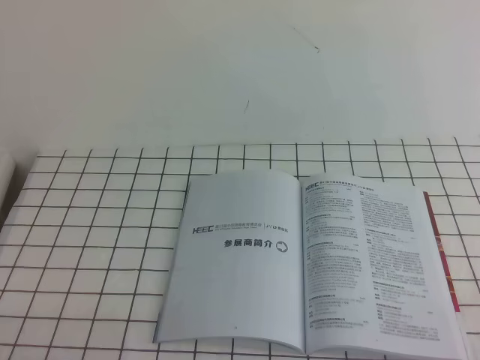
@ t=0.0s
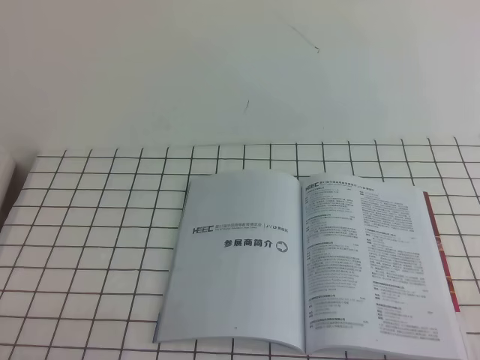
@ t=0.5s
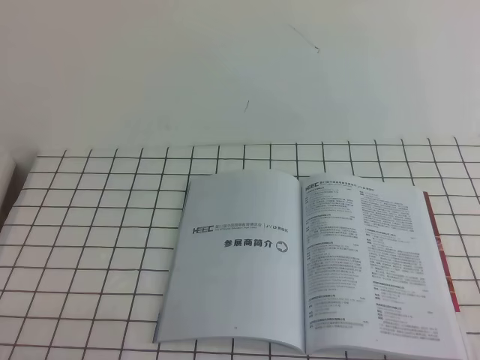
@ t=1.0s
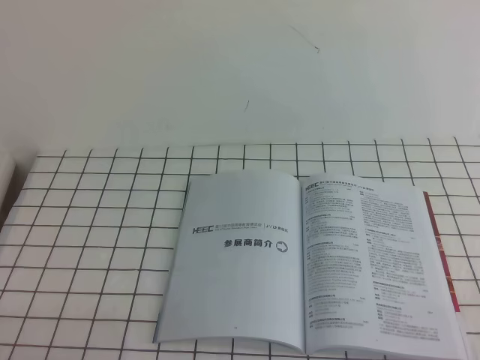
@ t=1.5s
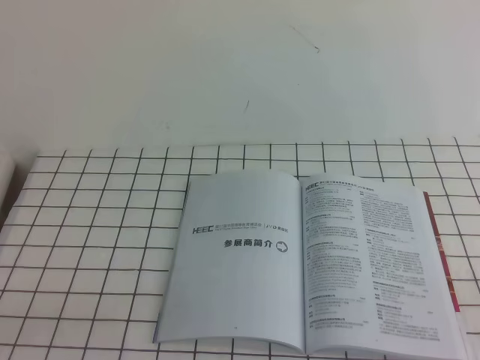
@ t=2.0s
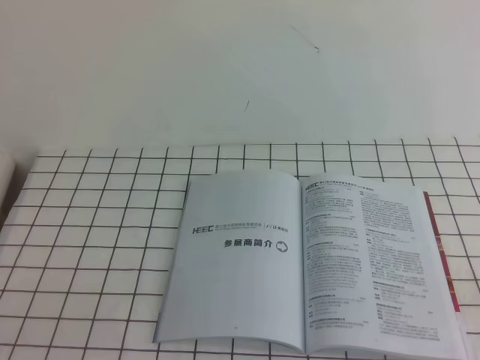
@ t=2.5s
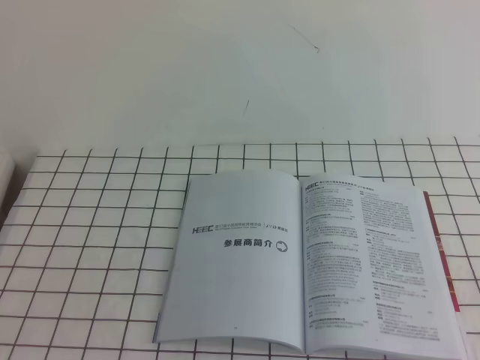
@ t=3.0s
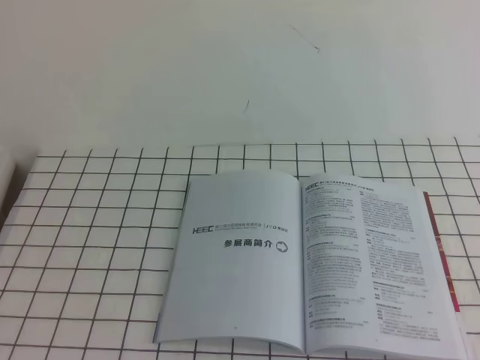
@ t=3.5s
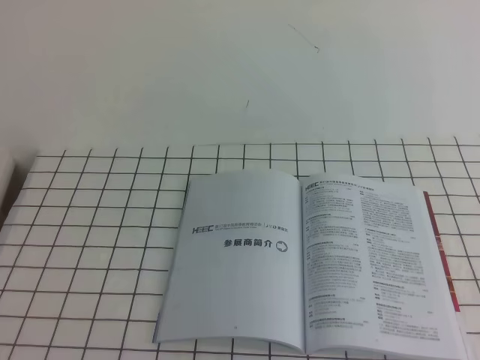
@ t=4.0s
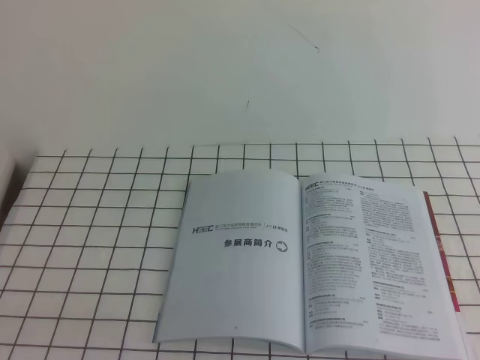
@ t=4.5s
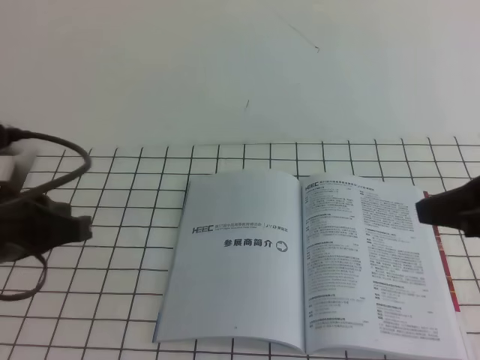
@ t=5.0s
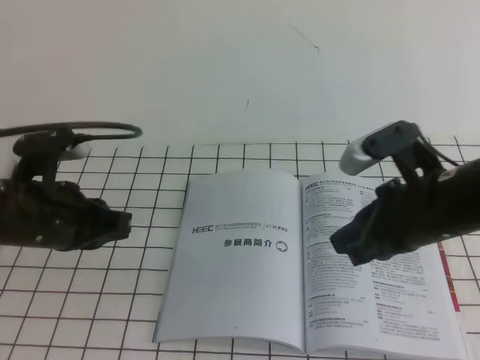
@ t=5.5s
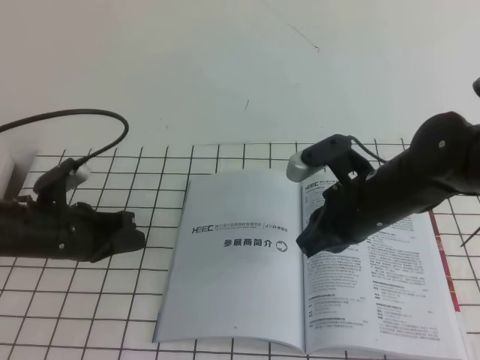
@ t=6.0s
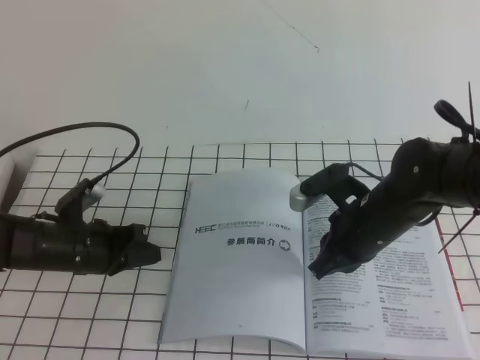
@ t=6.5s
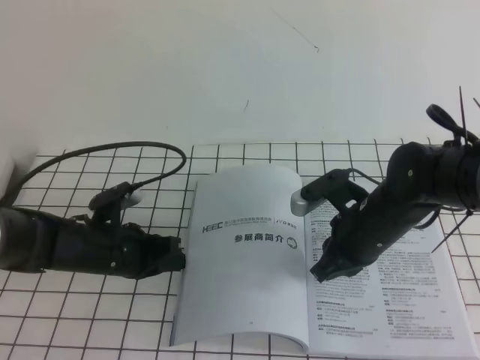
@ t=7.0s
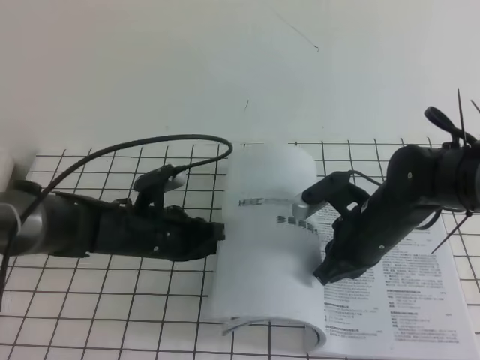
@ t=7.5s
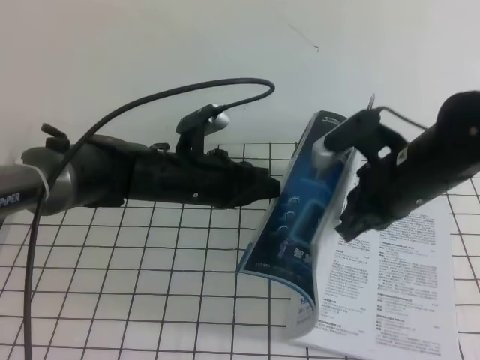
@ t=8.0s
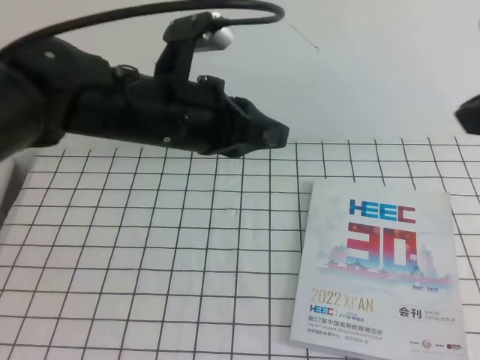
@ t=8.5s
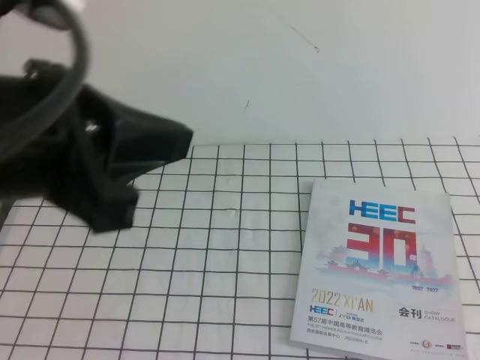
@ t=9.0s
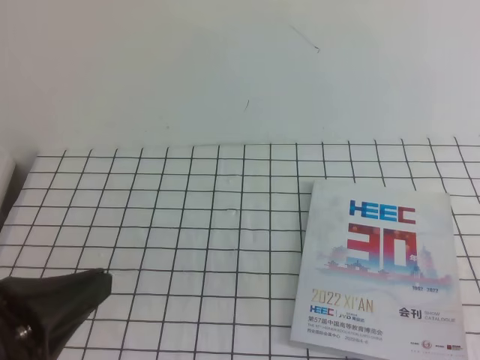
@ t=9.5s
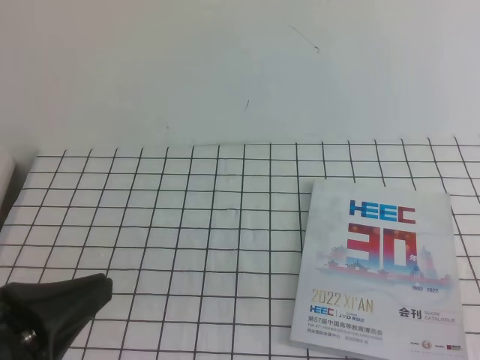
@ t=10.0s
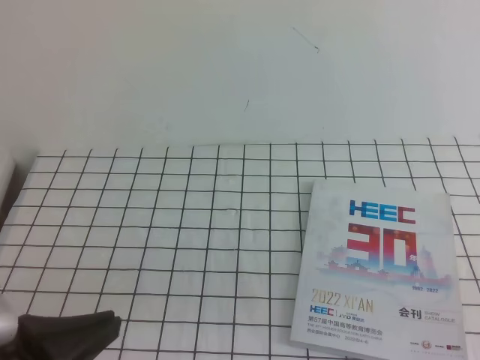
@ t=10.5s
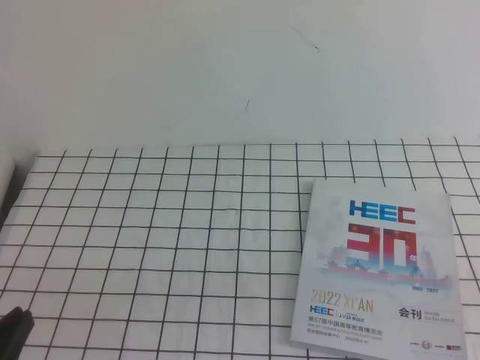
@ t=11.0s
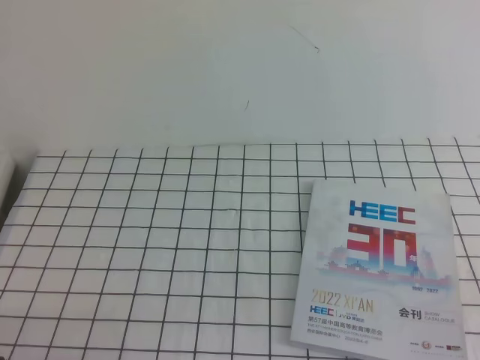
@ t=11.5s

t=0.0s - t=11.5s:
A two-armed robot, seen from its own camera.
Task of the whole recording: on the white tablecloth, hold the book with one hand and close it with the other.
t=4.0s - t=6.0s: The left gripper goes roughly 30 cm forward and downward. Meanwhile the right gripper travels forward, to the left and downward by roughly 30 cm.
t=6.0s - t=7.5s: The right gripper travels downward by approximately 5 cm. The left gripper is displaced to the right by approximately 10 cm.
t=7.5s - t=9.5s: The left gripper shifts about 30 cm backward and upward. The right gripper heads backward, to the right and upward, covering approximately 40 cm.
t=9.5s - t=11.5s: The left gripper goes some 15 cm downward.

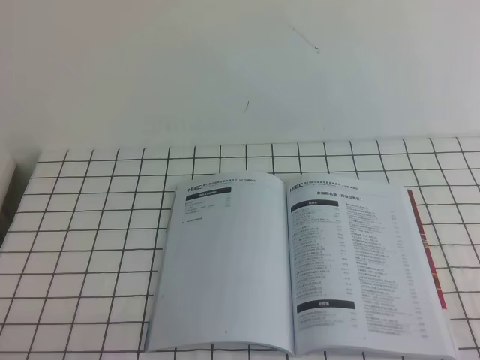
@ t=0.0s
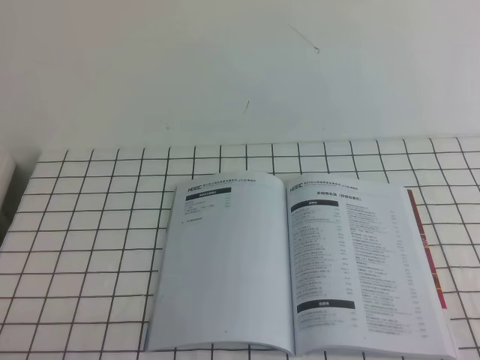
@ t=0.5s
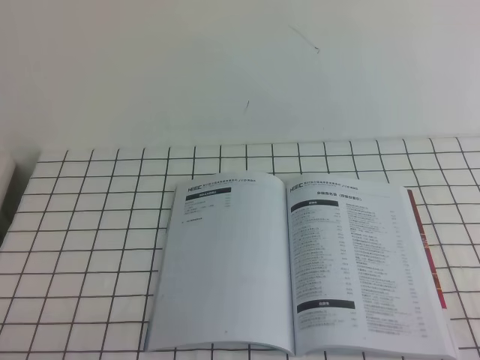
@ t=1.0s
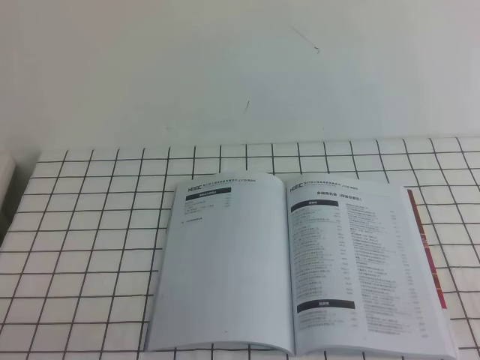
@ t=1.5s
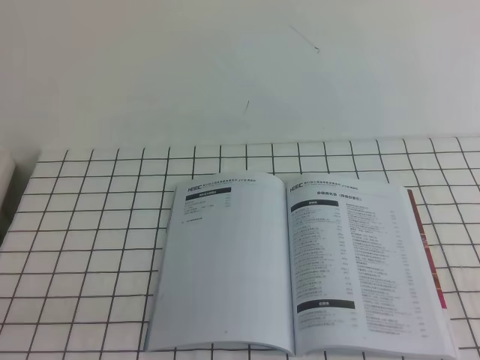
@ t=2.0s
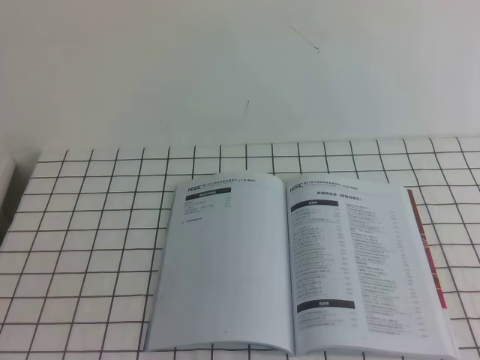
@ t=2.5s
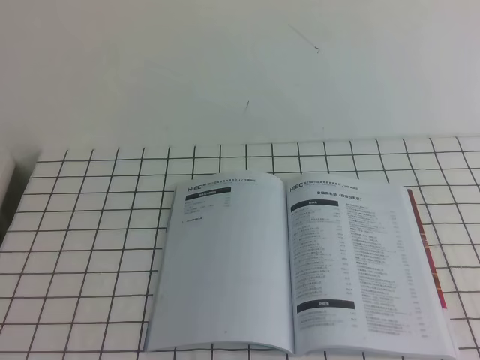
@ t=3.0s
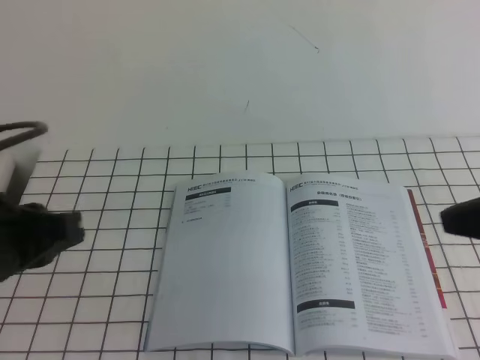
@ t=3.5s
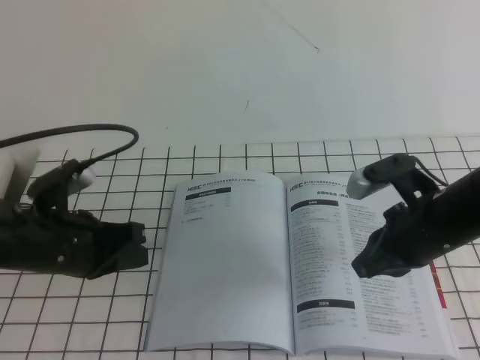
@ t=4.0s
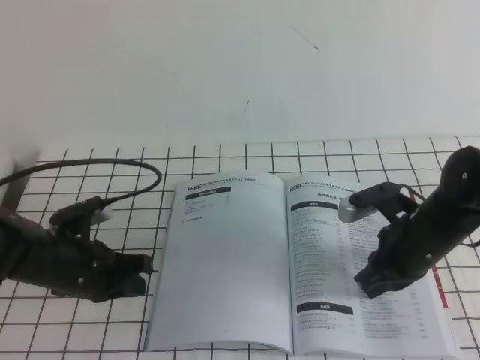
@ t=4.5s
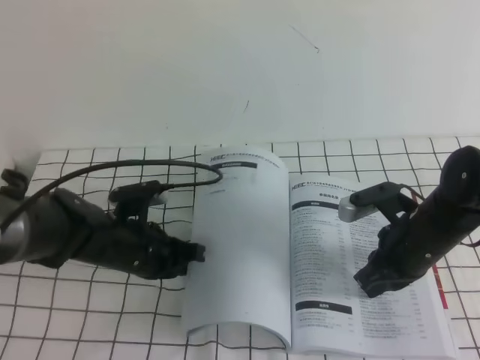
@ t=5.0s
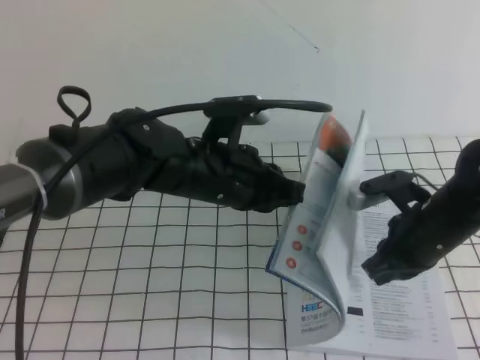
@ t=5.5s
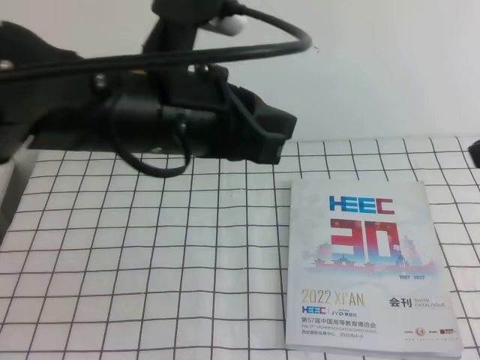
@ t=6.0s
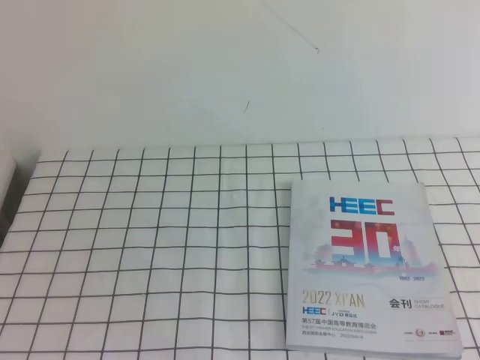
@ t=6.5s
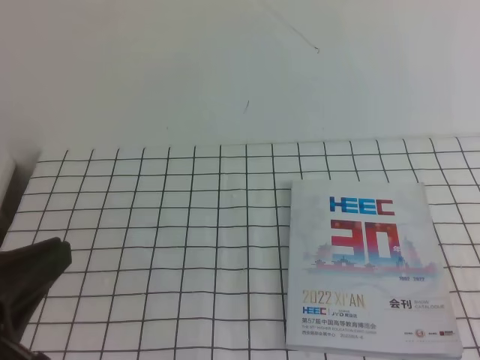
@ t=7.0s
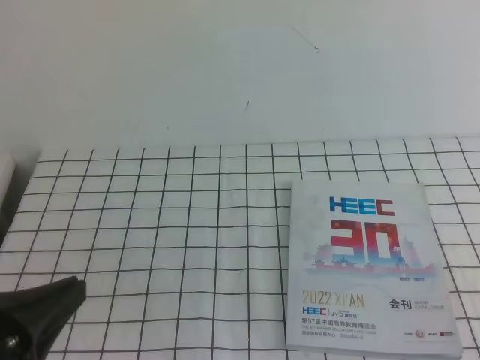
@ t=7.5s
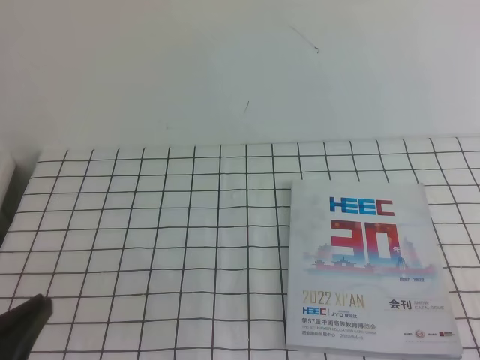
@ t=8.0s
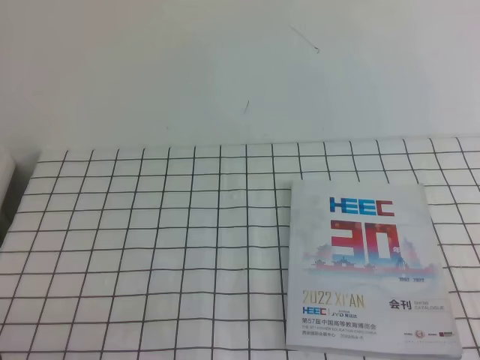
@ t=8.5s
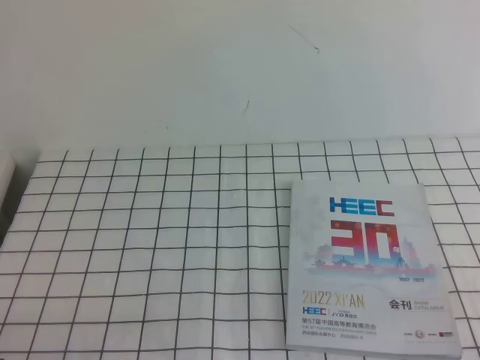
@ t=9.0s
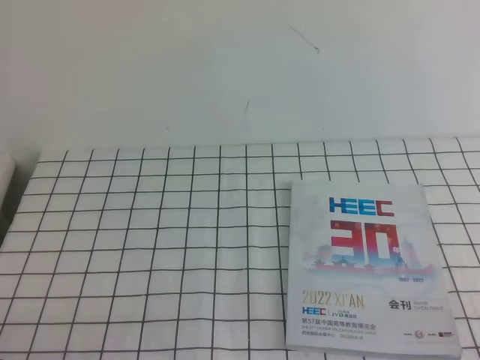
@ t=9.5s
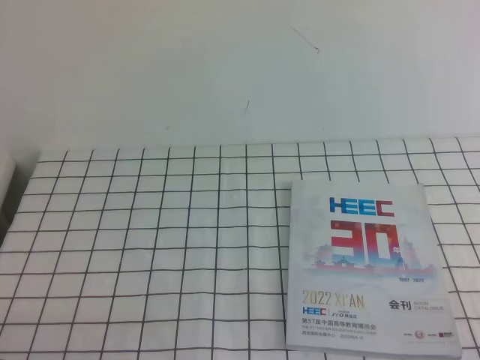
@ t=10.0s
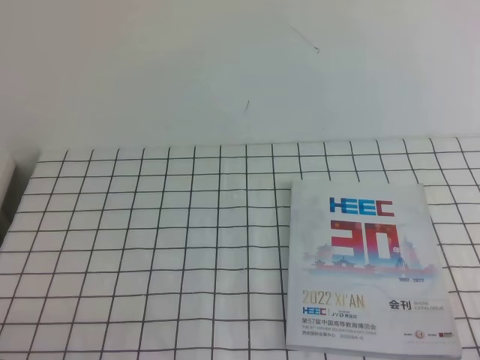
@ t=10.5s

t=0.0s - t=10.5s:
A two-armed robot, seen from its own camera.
Task of the whole recording: on the white tablecloth, hold the book with one hand and close it with the other.
Step, t=0.0s - t=10.5s: Close the open book.
t=2.0s - t=4.0s: The left gripper goes approximately 20 cm forward. Meanwhile the right gripper shifts roughly 30 cm forward and to the left.
t=4.0s - t=6.5s: The right gripper travels backward, upward and to the right by roughly 40 cm, while the left gripper is displaced upward and backward by some 30 cm.
t=6.5s - t=8.5s: The left gripper travels downward by about 25 cm; the right gripper shifts roughly 20 cm downward.

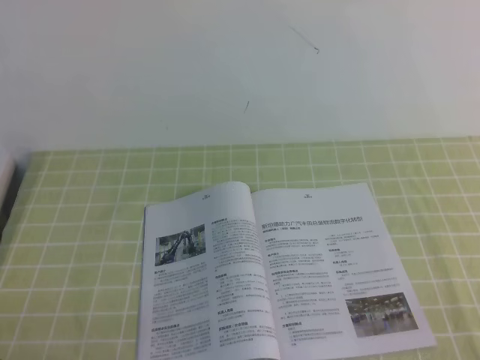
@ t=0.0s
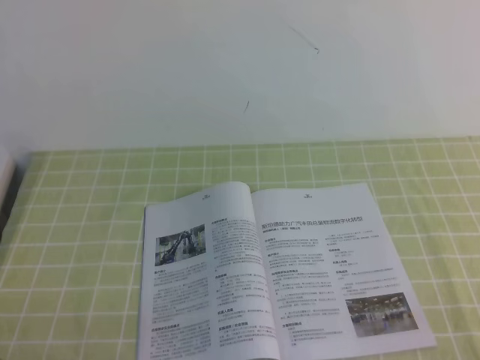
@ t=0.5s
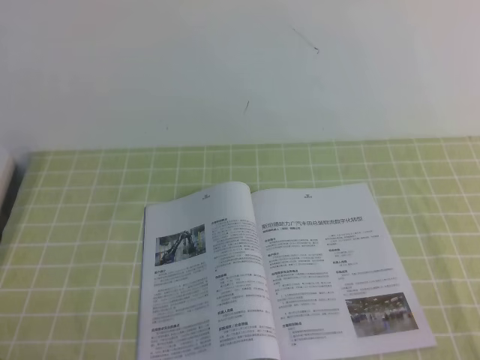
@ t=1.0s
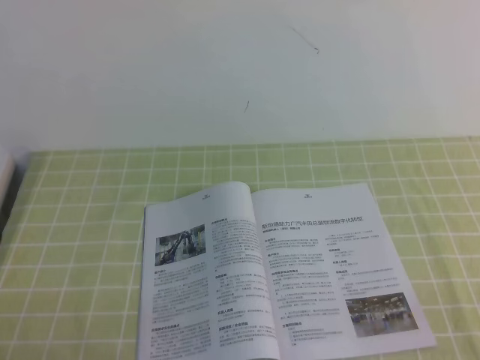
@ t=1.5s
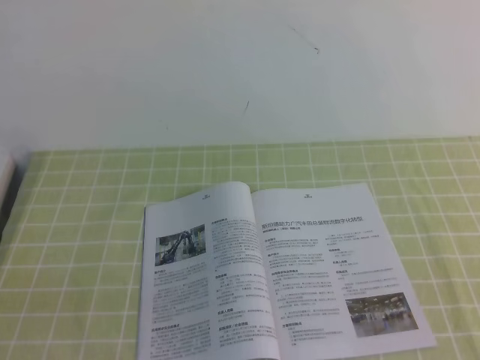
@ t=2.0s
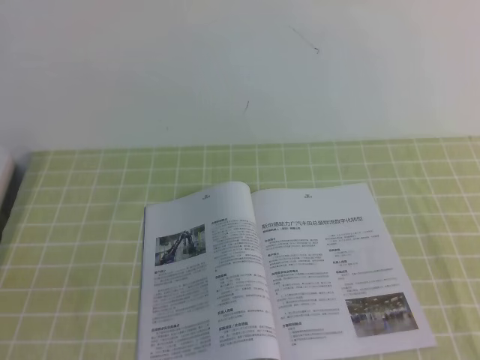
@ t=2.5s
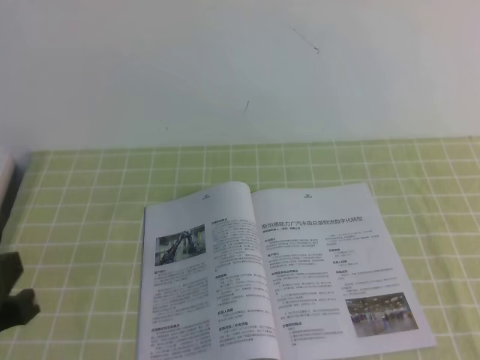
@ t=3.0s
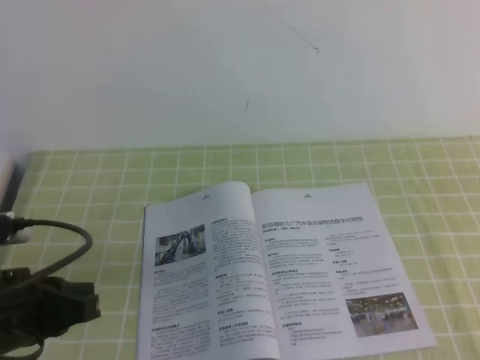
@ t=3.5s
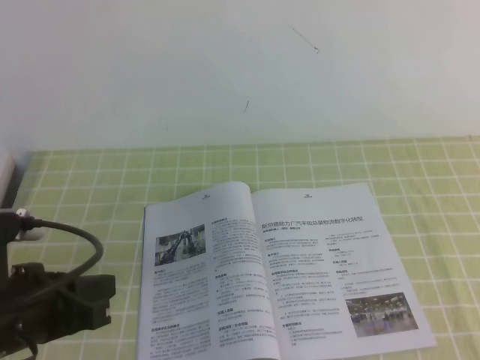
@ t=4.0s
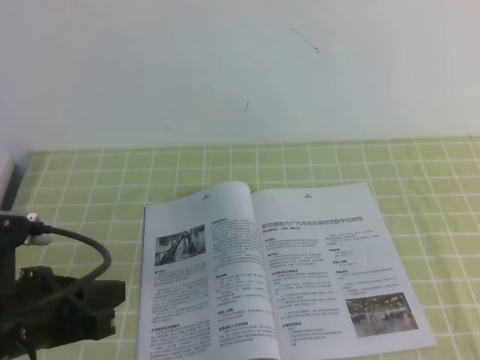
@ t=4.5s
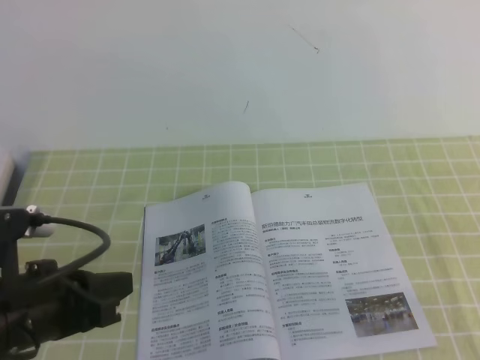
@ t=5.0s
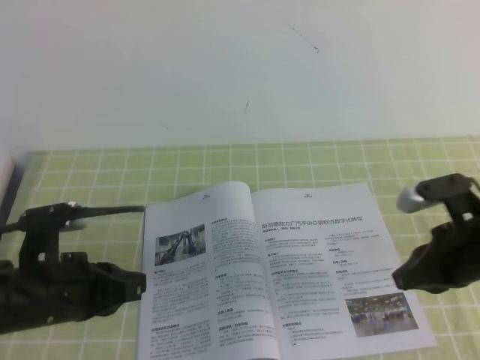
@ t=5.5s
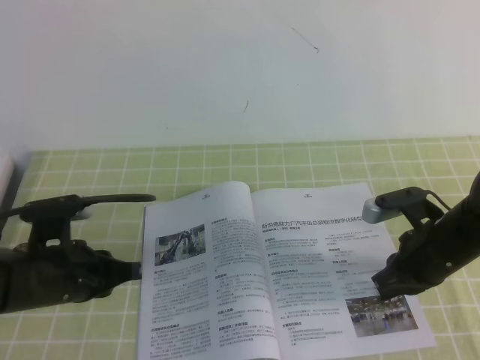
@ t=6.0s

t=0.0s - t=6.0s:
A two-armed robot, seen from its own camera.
Task of the whole recording: on the green tablecloth, hold the book with one hand and close it with the other.
t=2.0s - t=4.0s: The left gripper shifts roughly 15 cm forward.
t=4.0s - t=6.0s: The right gripper heads downward and to the left, covering about 20 cm; the left gripper goes about 10 cm forward and downward.
